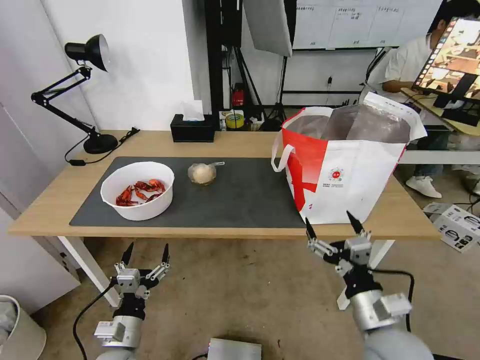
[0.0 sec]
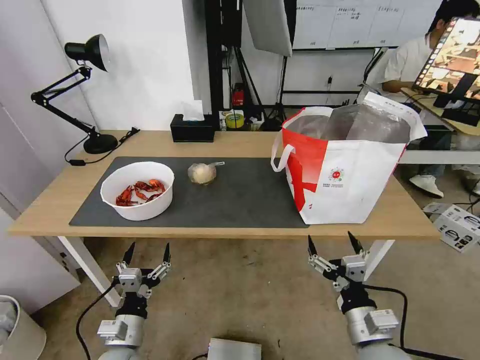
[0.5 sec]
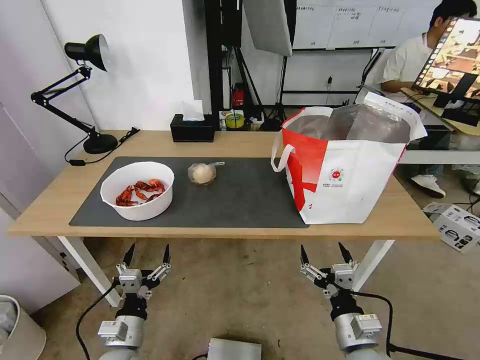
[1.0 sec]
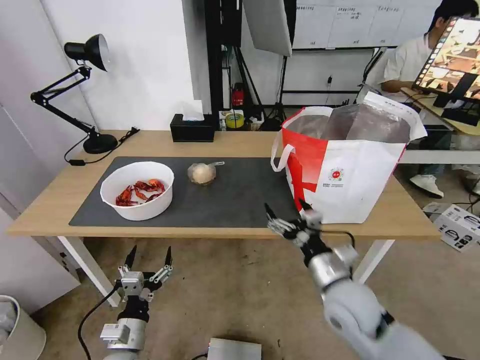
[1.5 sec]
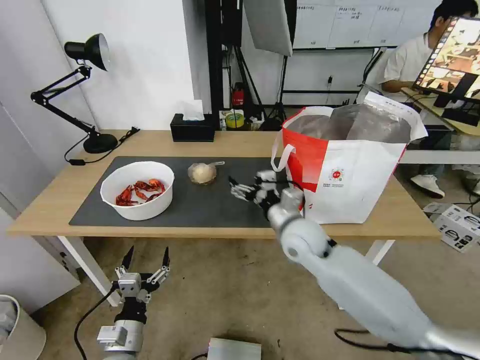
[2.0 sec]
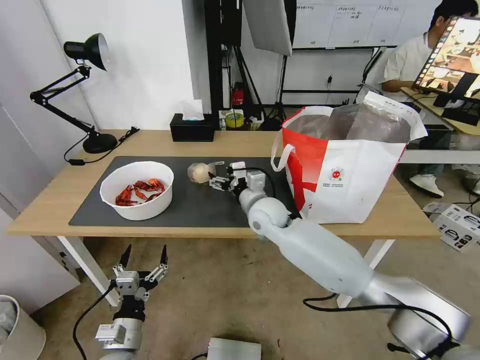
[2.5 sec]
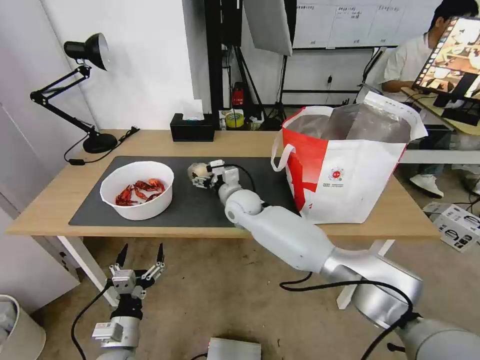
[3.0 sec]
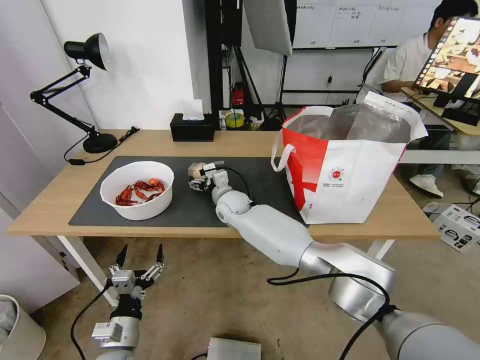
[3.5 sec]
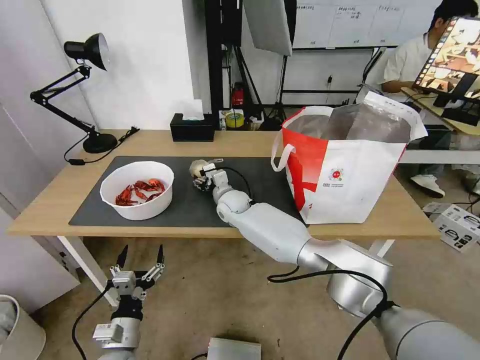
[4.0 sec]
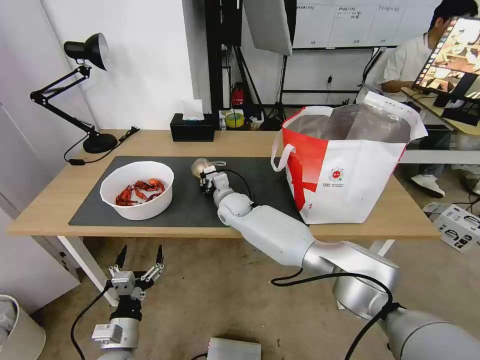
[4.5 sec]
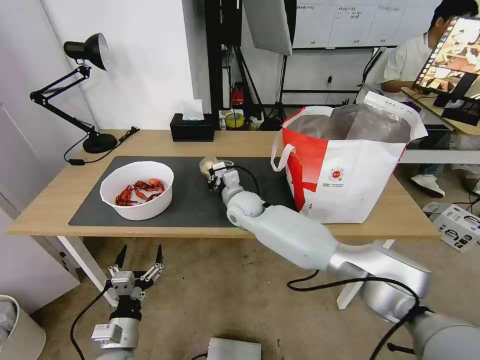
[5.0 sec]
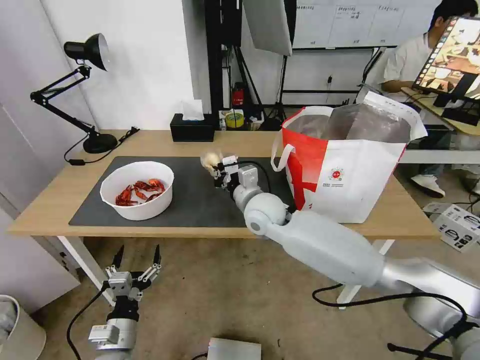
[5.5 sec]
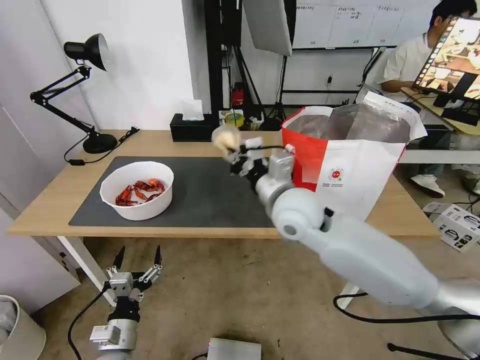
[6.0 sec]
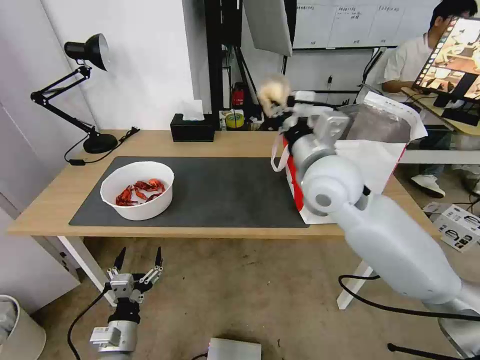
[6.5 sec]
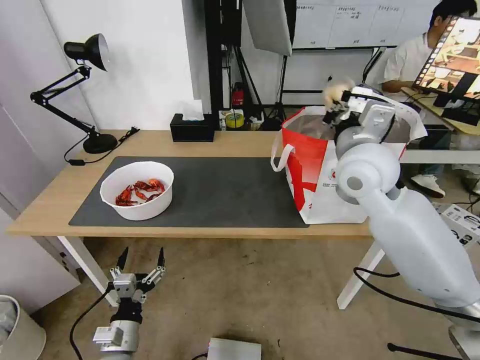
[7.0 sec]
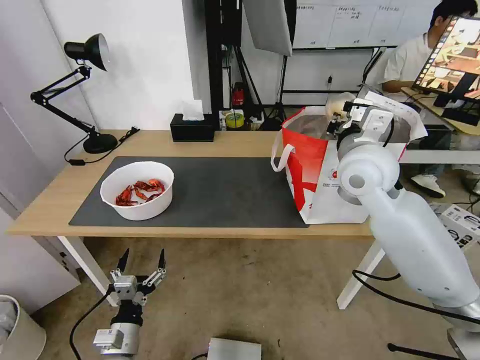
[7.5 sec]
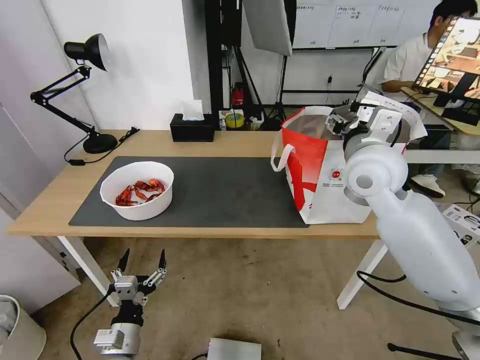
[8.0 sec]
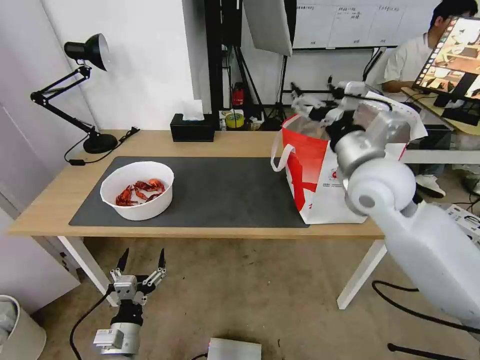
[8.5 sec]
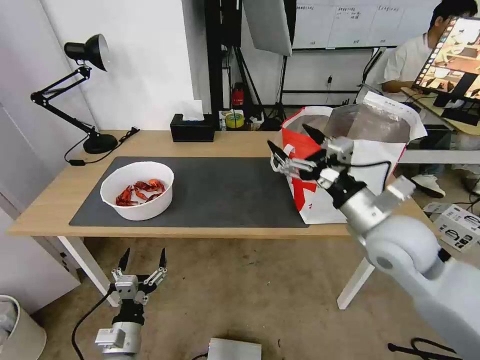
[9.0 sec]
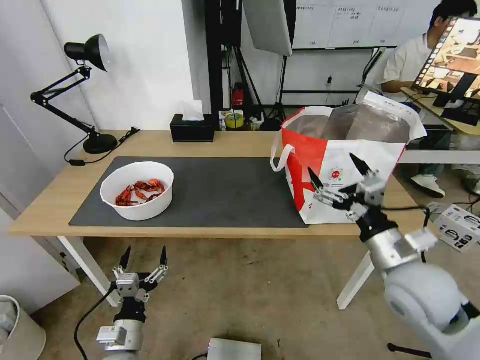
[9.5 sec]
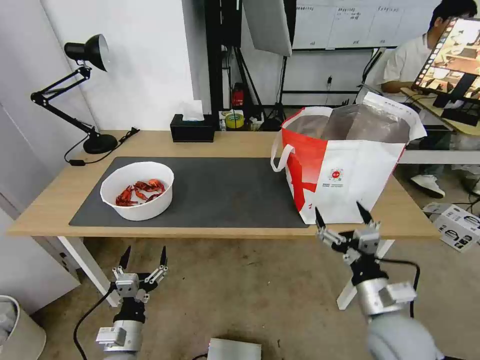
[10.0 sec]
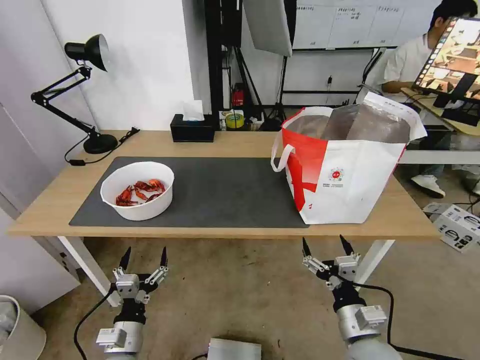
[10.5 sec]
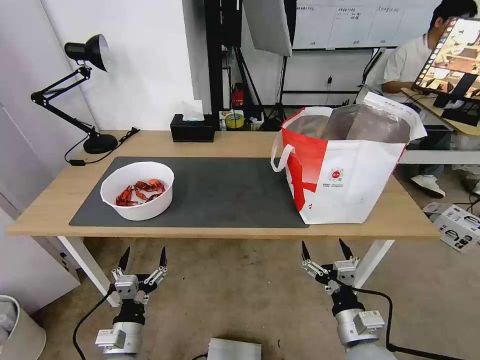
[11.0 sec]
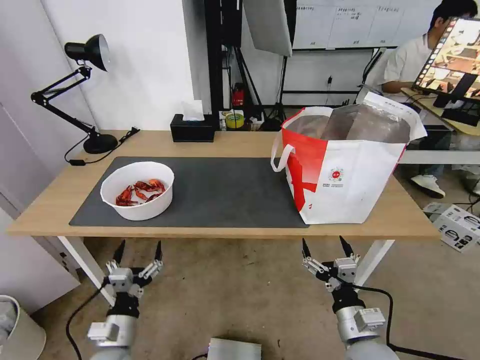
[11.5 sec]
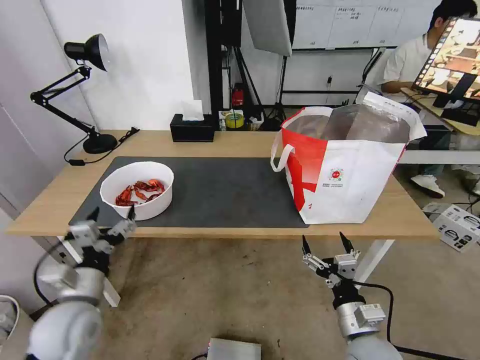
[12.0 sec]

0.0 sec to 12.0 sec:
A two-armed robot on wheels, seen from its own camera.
Task of the whole recording: Pick up the trash from the table and place it into the takeout bag.
0.0 sec to 2.0 sec: The right gripper moves forward and to the left, about 25 cm.
2.0 sec to 4.0 sec: The right gripper heads forward and to the left, covering some 25 cm.
4.0 sec to 6.0 sec: The right gripper travels upward, backward and to the right by approximately 25 cm, and closes its fingers.
6.0 sec to 8.0 sec: The right gripper goes roughly 15 cm to the right and upward, and opens up.
8.0 sec to 10.0 sec: The right gripper goes some 30 cm downward and backward.
10.0 sec to 12.0 sec: The left gripper travels upward, forward and to the left by roughly 15 cm. Meanwhile the right gripper travels downward by about 5 cm.

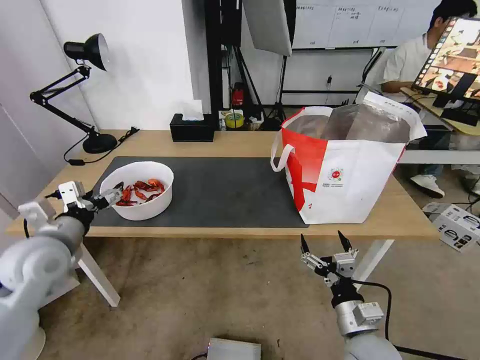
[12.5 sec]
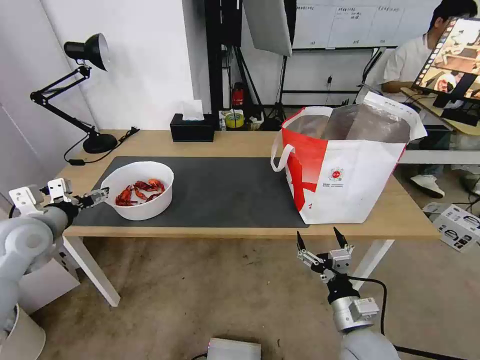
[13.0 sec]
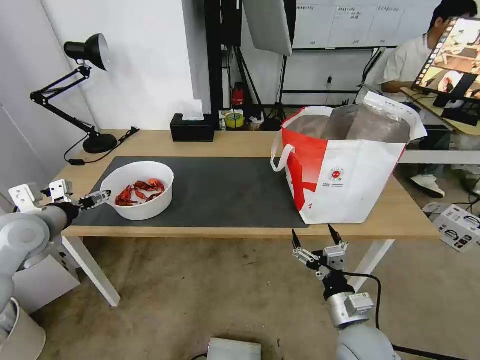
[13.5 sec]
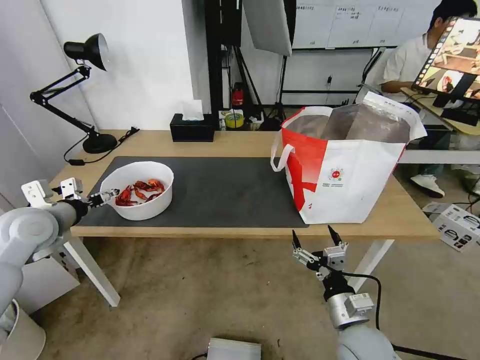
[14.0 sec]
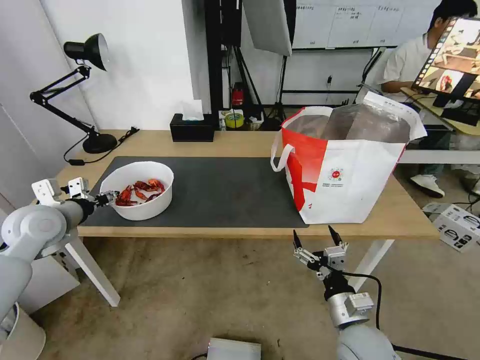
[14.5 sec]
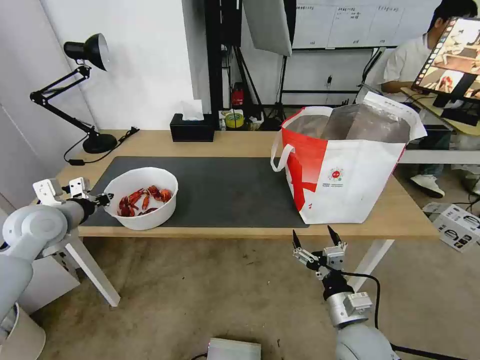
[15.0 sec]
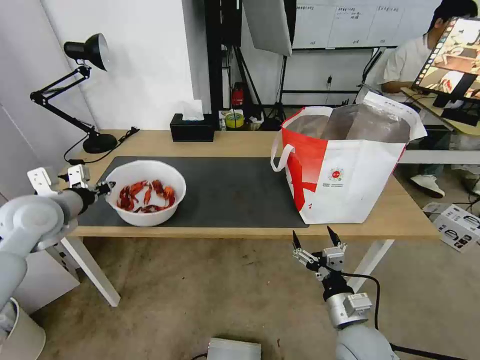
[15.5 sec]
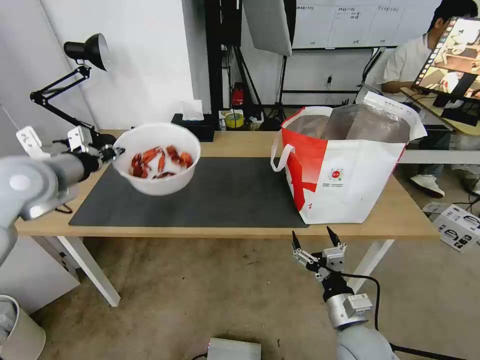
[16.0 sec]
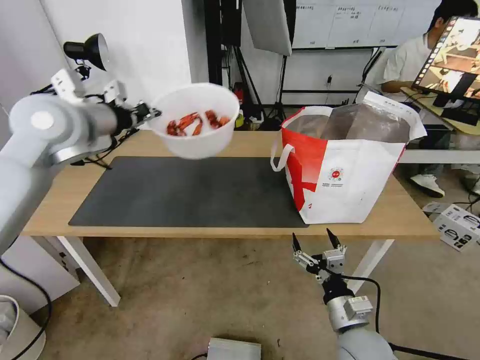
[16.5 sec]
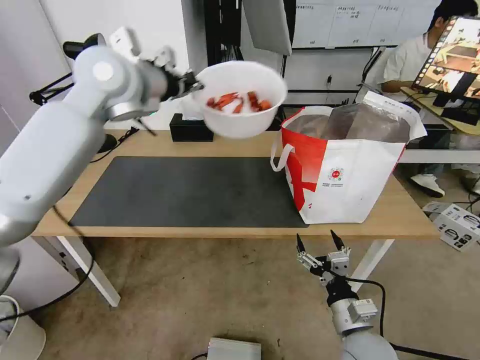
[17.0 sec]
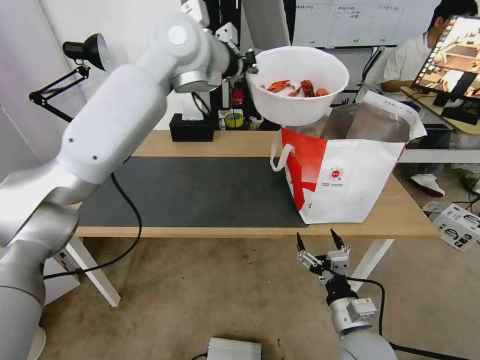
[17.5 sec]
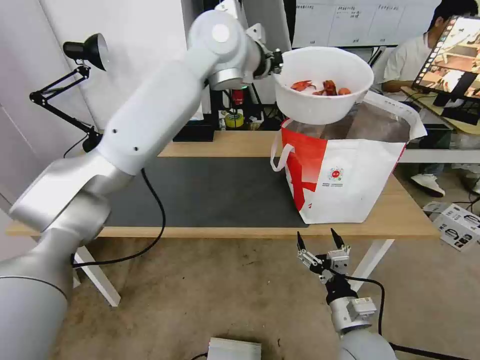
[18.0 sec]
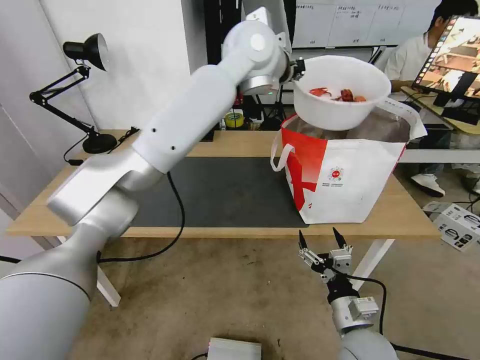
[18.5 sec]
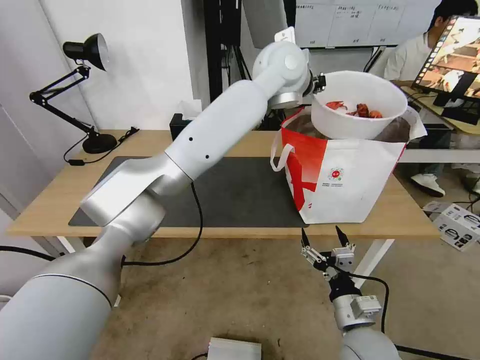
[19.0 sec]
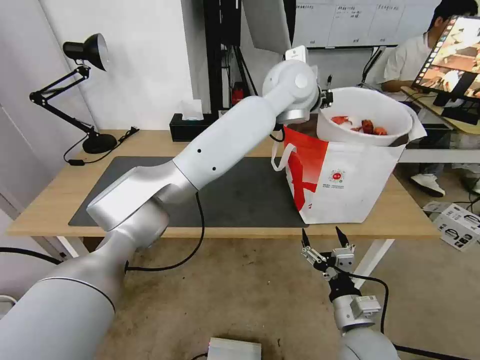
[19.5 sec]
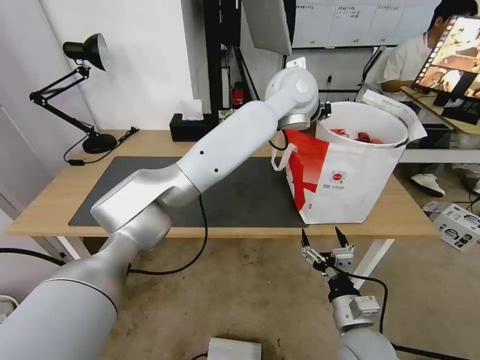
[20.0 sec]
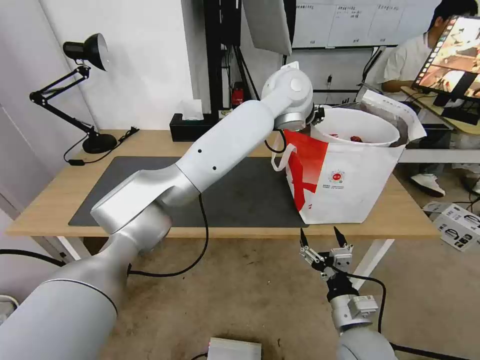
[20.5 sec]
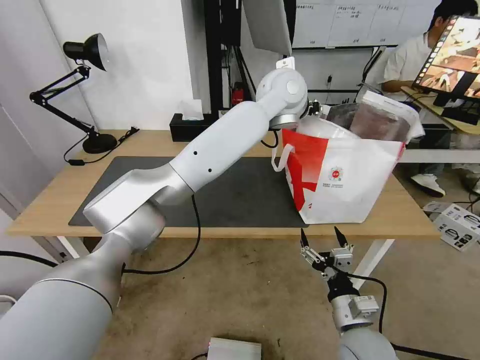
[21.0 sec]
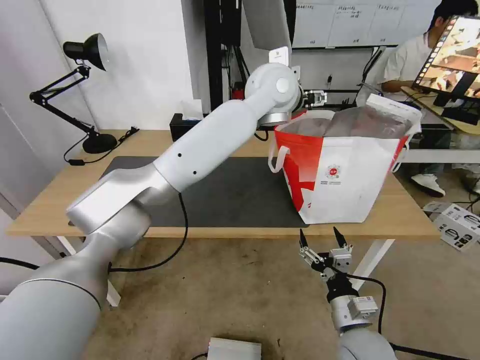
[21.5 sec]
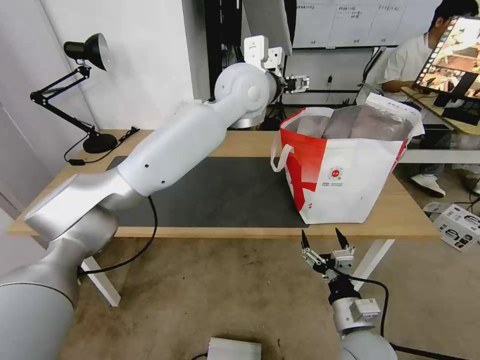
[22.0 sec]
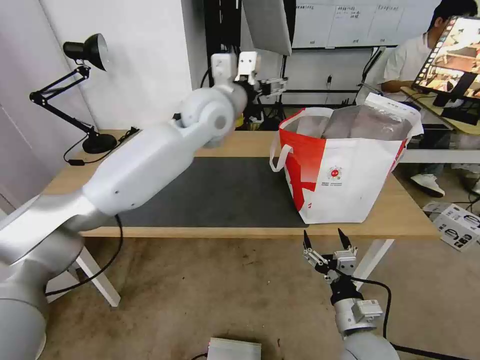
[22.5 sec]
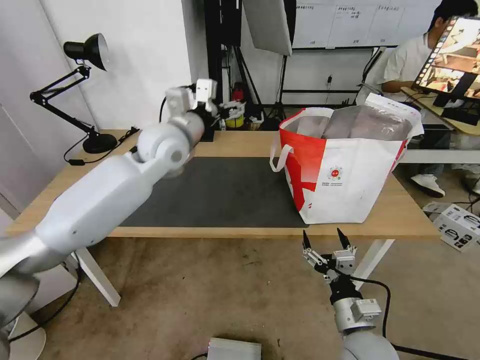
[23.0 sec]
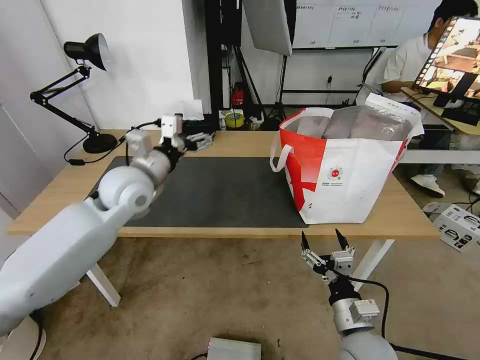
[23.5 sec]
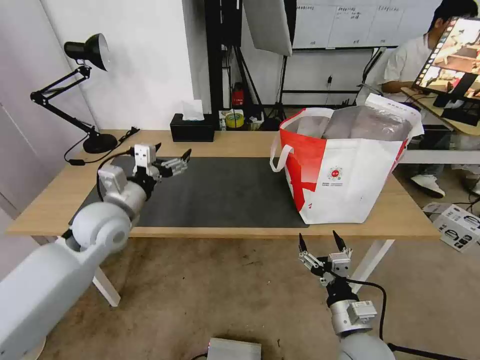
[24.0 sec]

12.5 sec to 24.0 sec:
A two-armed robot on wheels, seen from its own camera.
Task of the whole recording: Pick up the trash from the table and place it into the takeout bag.
12.5 sec to 14.5 sec: The left gripper moves forward, approximately 10 cm, and closes up.
14.5 sec to 16.5 sec: The left gripper travels upward and to the right by about 20 cm, and closes its fingers.
16.5 sec to 18.5 sec: The left gripper shifts some 30 cm to the right.
18.5 sec to 20.0 sec: The left gripper moves to the right and downward, some 10 cm.
20.0 sec to 22.0 sec: The left gripper is displaced to the left by some 10 cm, and opens up.
22.0 sec to 24.0 sec: The left gripper goes about 35 cm to the left, downward and backward.

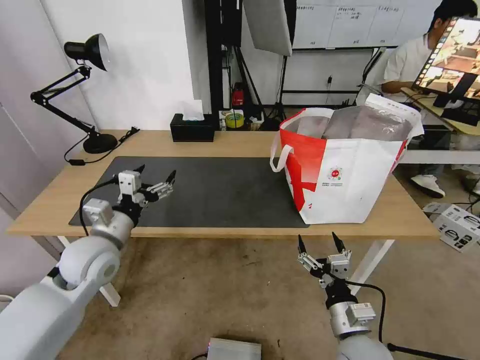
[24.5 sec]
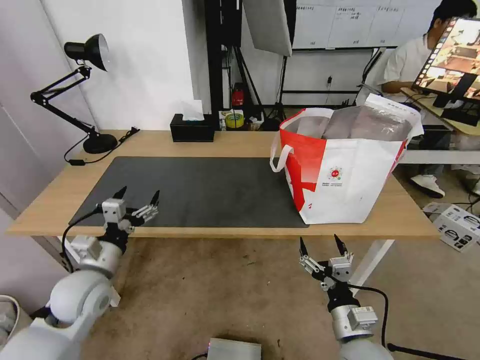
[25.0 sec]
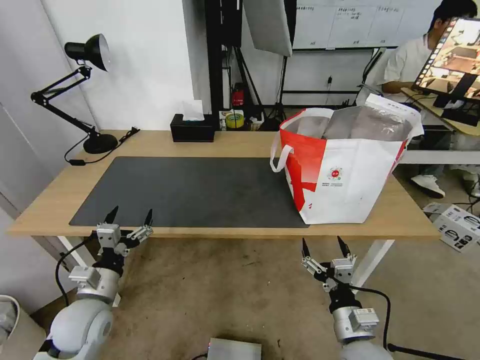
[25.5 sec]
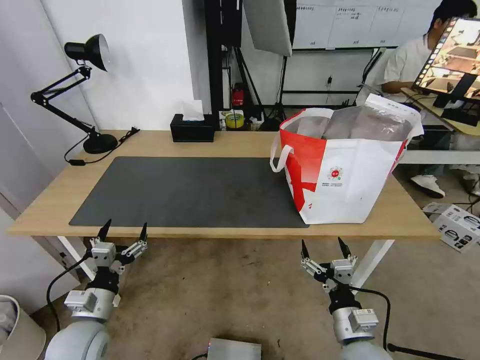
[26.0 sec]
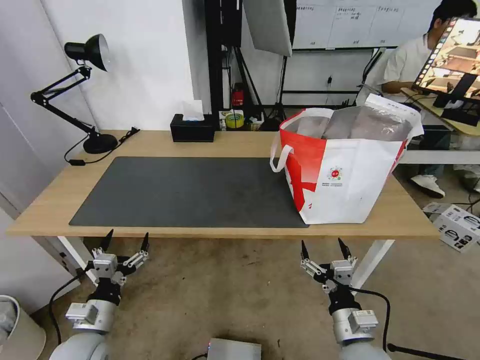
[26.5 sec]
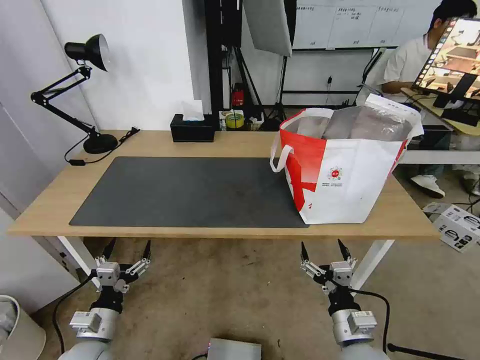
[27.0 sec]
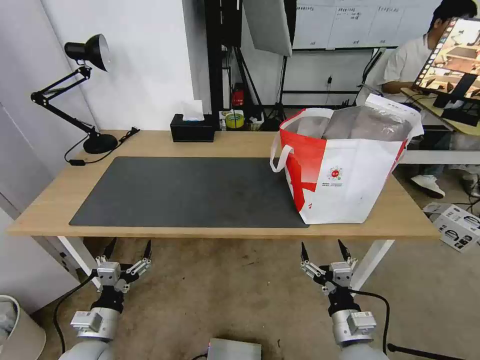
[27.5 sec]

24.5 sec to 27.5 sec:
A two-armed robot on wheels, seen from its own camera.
Task of the whole recording: Pick up the trash from the table and place it into the takeout bag.
24.5 sec to 26.0 sec: The left gripper shifts approximately 20 cm downward and backward.
26.0 sec to 27.5 sec: There are only small adjustments of the grippers.
